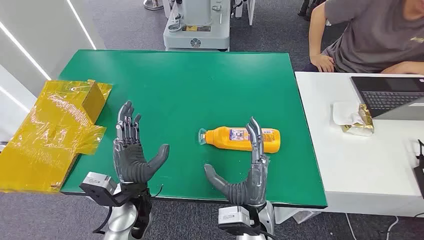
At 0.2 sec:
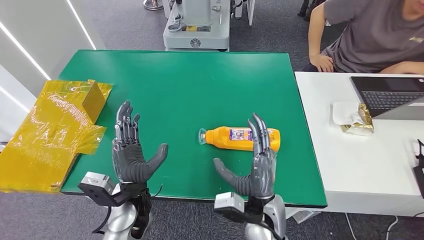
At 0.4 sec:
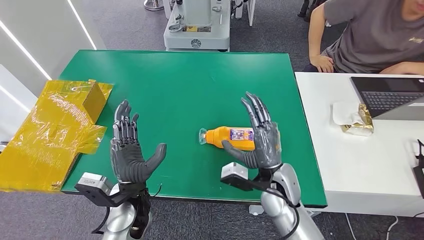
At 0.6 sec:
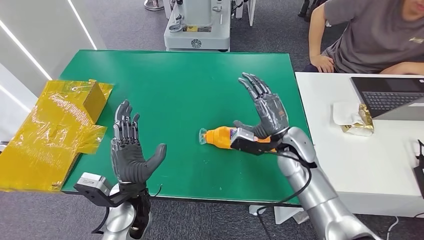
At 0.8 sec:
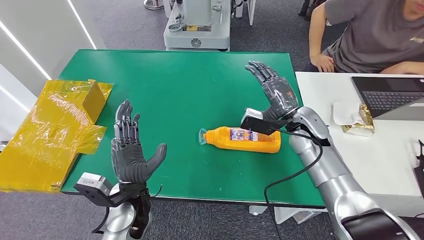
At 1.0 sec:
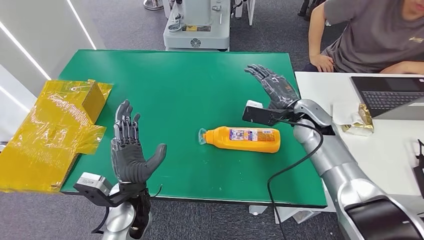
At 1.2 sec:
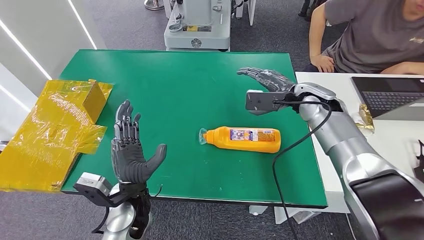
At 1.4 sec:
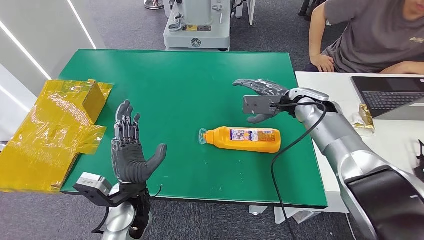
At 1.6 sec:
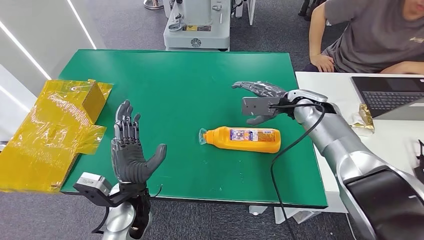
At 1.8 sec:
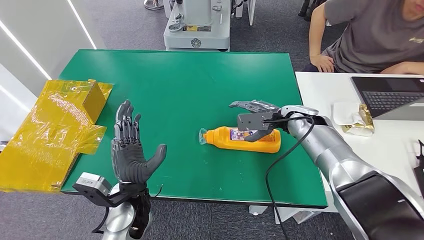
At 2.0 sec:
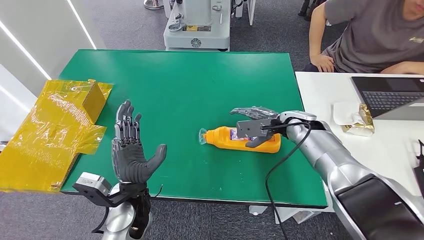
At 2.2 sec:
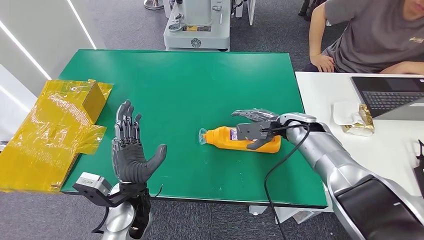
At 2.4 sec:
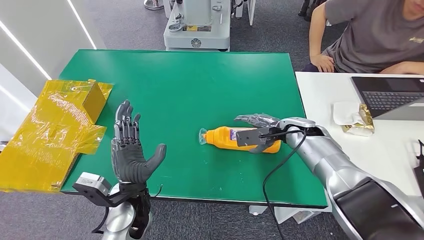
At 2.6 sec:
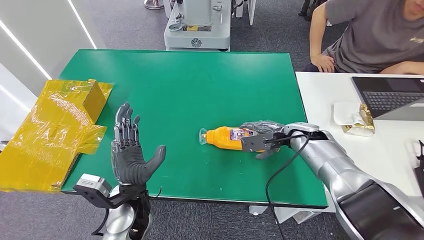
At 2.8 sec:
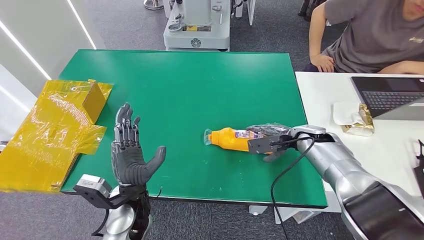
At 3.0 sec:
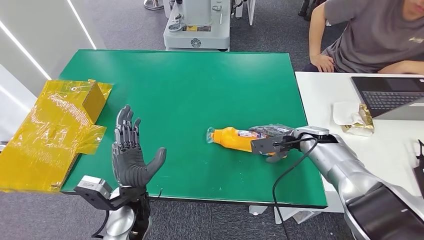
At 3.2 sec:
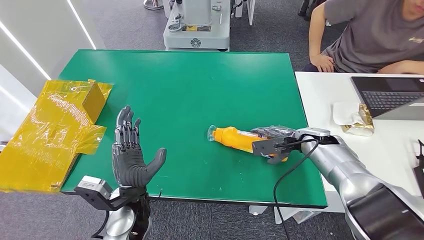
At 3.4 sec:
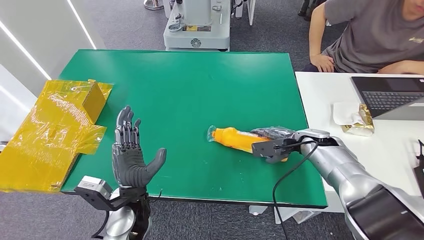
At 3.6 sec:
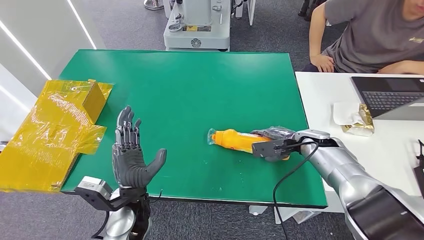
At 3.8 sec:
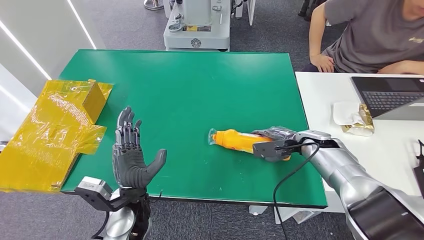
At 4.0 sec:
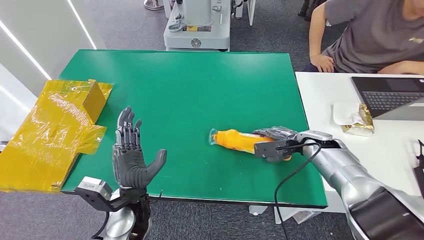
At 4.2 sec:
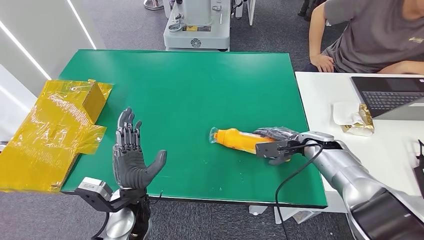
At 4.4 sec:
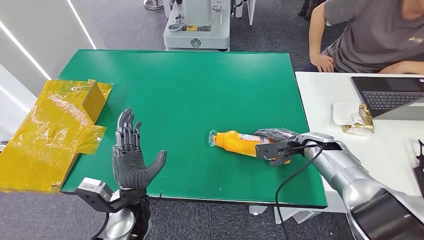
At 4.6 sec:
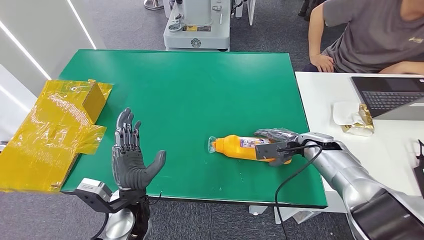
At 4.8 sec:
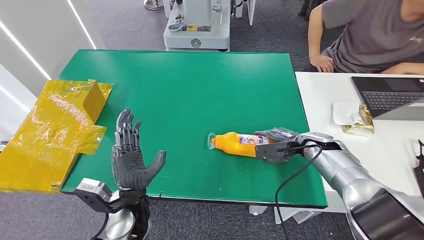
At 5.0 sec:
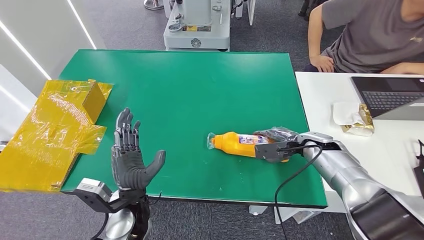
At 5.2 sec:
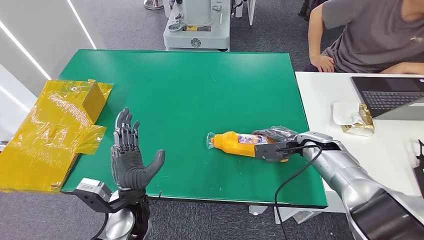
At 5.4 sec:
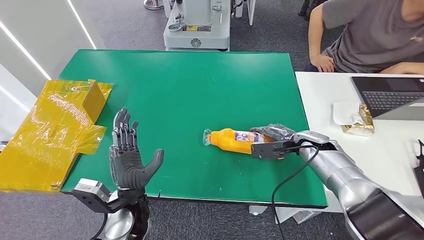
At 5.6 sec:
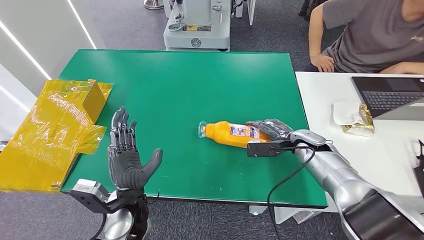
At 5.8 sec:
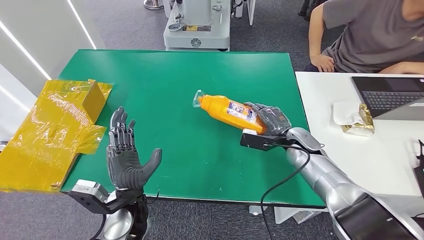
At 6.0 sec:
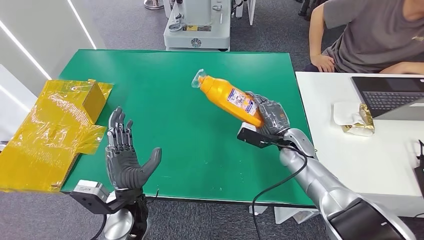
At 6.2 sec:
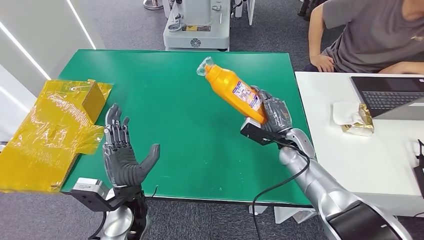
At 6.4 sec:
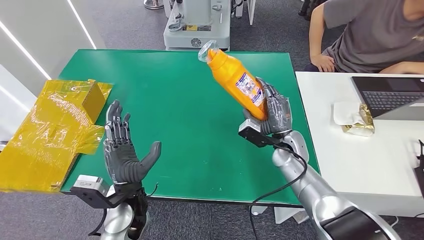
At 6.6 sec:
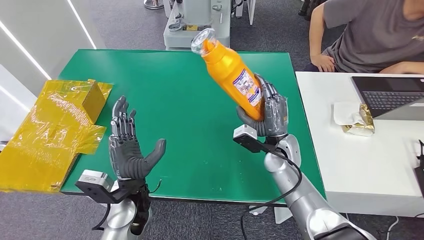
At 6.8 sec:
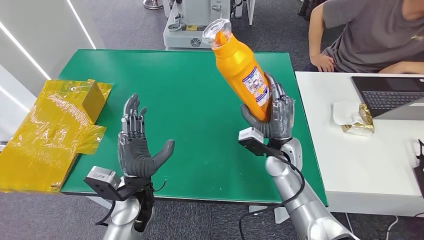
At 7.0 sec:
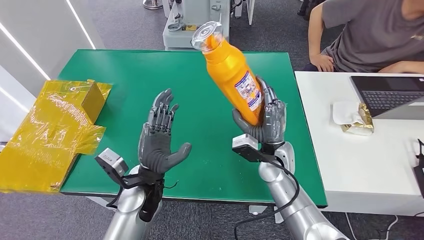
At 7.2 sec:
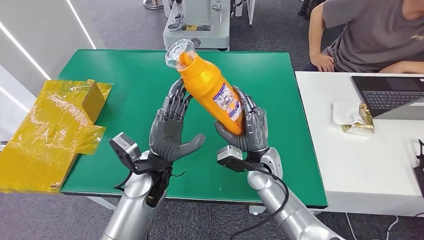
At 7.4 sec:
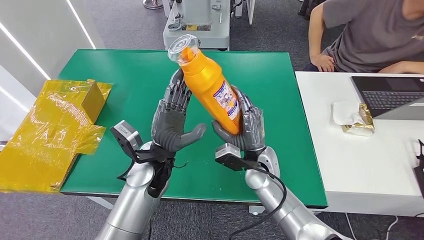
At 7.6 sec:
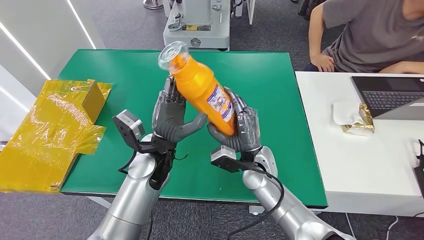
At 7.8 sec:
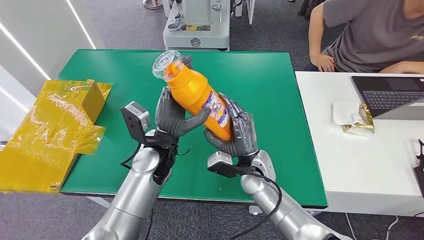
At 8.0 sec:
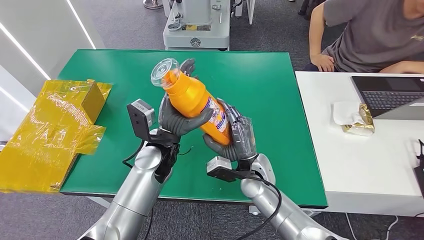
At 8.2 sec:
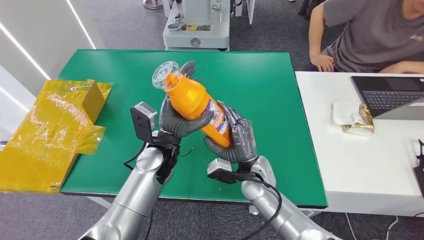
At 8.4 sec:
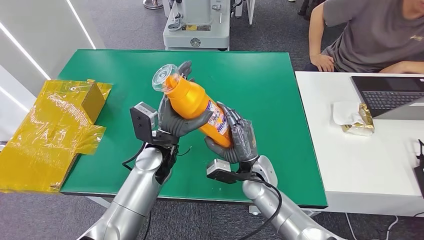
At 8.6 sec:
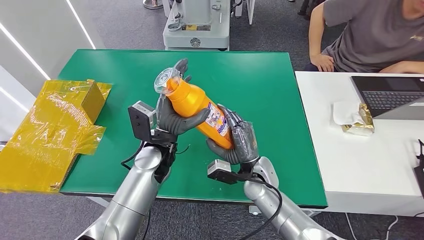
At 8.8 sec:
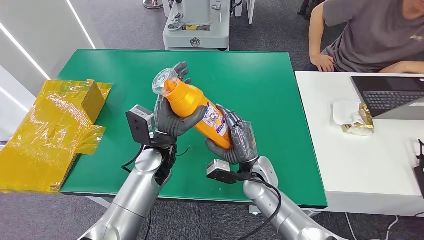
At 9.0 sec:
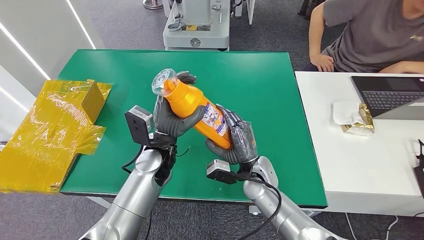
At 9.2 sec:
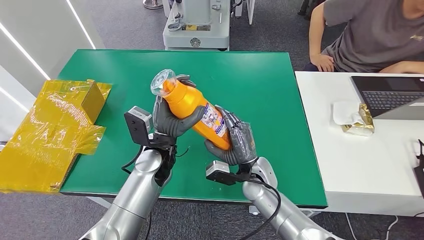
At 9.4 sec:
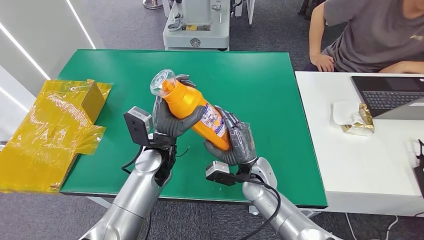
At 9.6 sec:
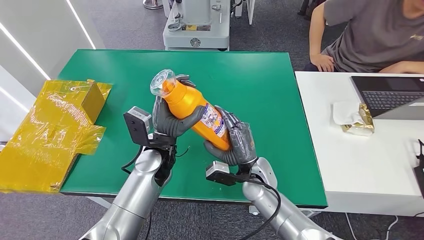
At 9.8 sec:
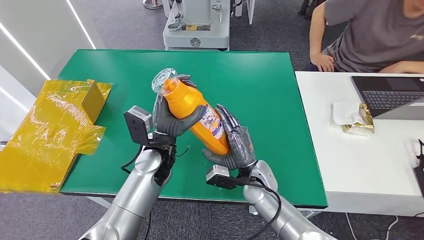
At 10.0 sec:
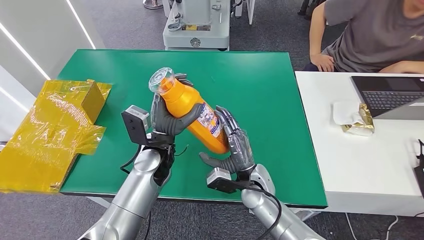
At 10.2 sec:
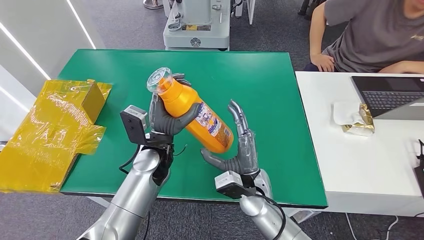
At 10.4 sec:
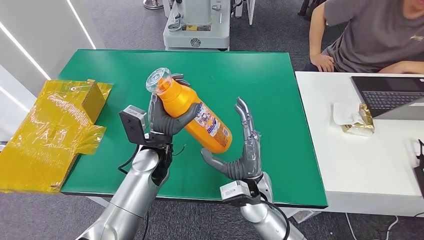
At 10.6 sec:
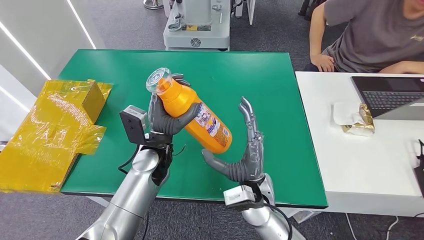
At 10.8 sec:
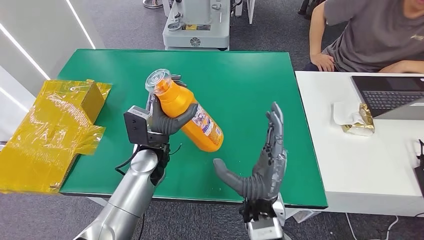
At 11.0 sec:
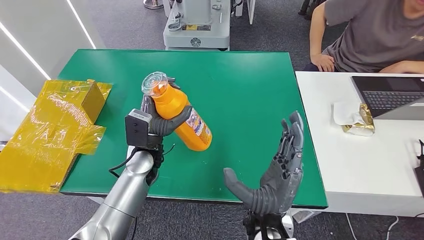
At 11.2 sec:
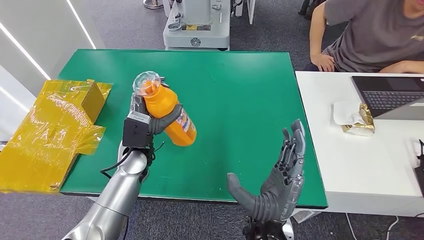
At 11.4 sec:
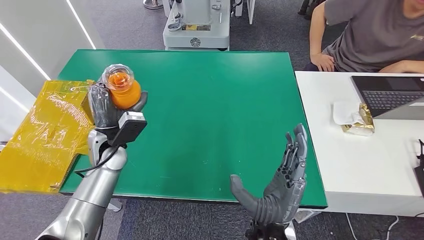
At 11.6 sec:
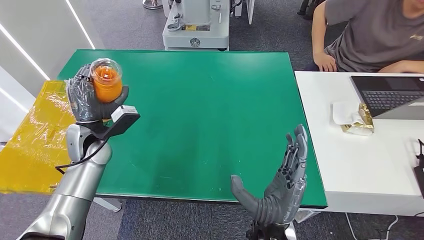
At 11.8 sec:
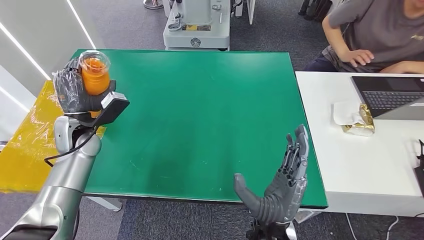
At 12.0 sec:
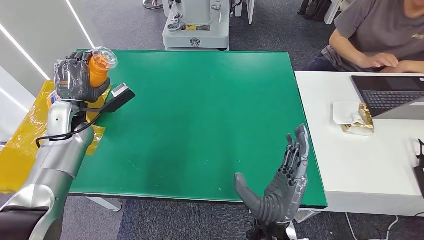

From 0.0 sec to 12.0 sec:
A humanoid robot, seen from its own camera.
Step, from 0.0 sec to 8.0 sec: Pick up the bottle from the table.
From 1.6 sec to 3.0 sec: The right hand heads downward and to the right, covering some 10 cm.
From 3.0 sec to 4.4 sec: The hands move only a little.
From 4.4 sec to 6.0 sec: The right hand moves to the left, roughly 5 cm.
From 7.6 sec to 9.0 sec: The hands move only a little.
From 9.0 sec to 10.4 sec: The right hand travels backward by approximately 5 cm.

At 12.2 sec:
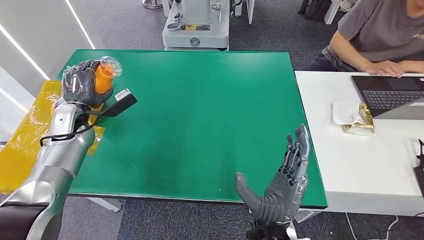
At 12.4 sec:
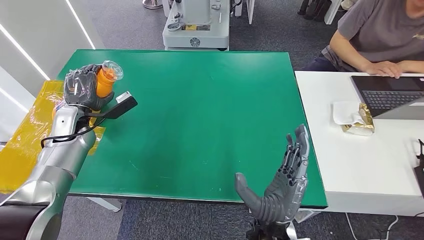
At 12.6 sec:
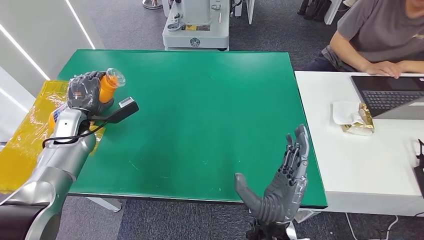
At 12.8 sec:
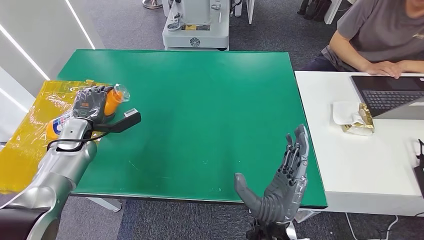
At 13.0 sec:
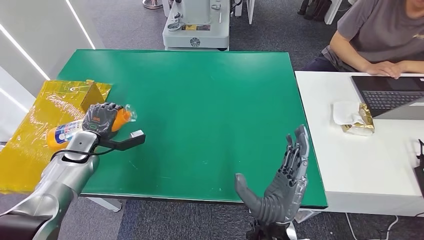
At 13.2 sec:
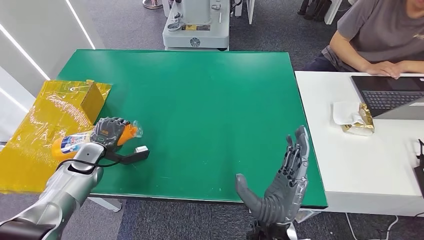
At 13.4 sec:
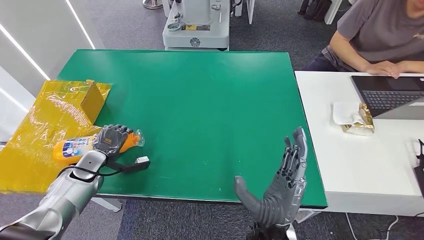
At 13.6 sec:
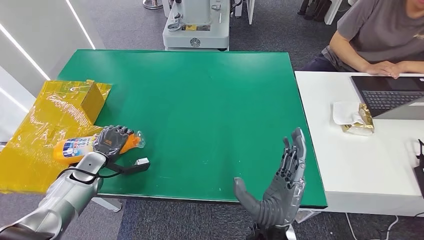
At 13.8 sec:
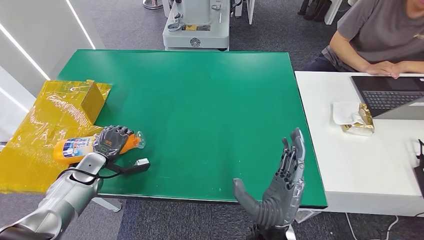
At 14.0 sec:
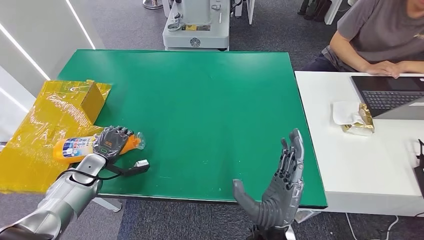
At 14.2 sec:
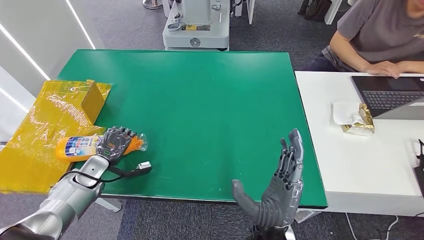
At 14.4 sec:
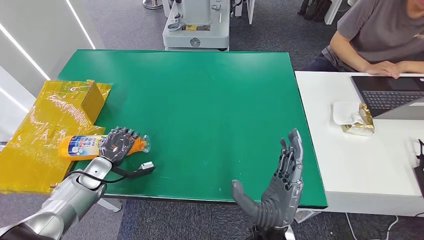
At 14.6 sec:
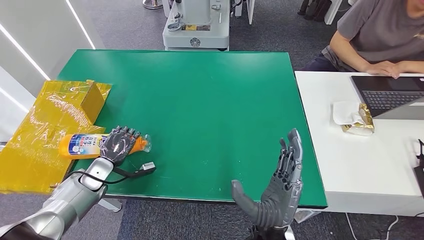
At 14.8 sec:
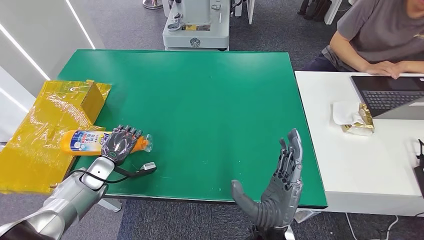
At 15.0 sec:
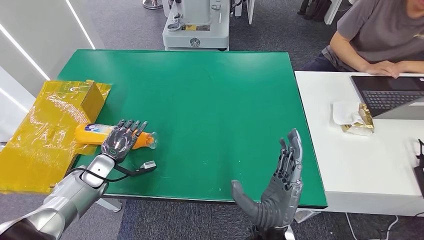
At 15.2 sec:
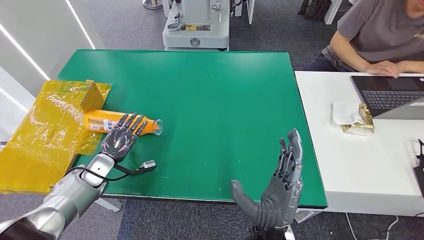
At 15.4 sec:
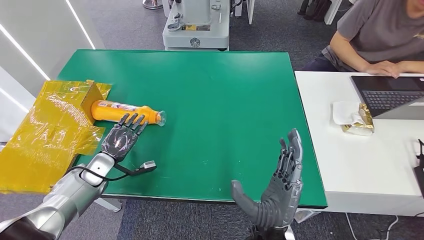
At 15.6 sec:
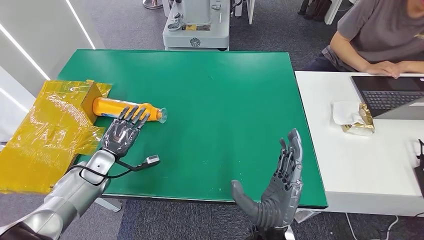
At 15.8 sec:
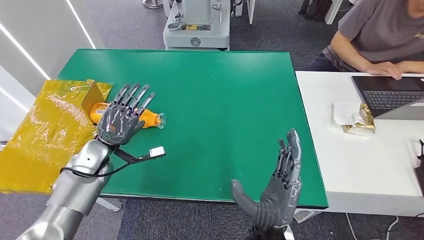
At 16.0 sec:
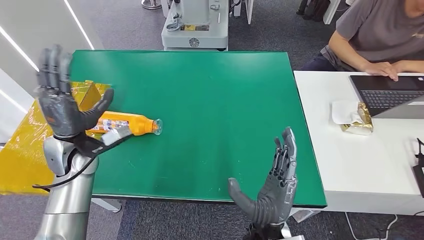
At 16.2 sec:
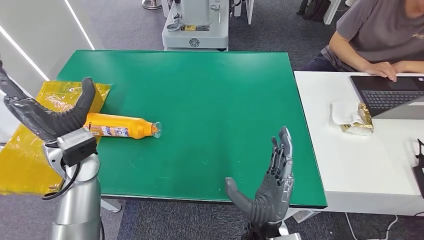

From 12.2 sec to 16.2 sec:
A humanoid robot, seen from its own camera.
Step, from 12.2 sec to 16.2 sec: Turn the bottle to the front side.
From 12.2 sec to 13.6 sec: The left hand heads downward and backward, covering roughly 15 cm.
From 13.6 sec to 14.8 sec: The hands move only a little.
From 14.8 sec to 16.2 sec: The left hand moves upward and to the right, about 20 cm.
